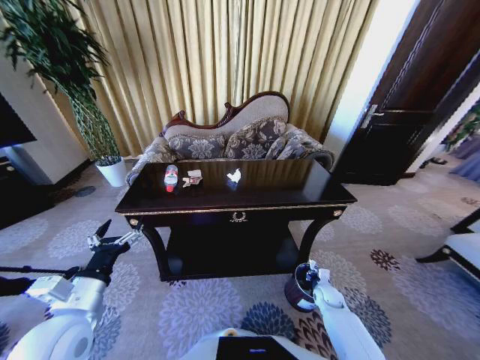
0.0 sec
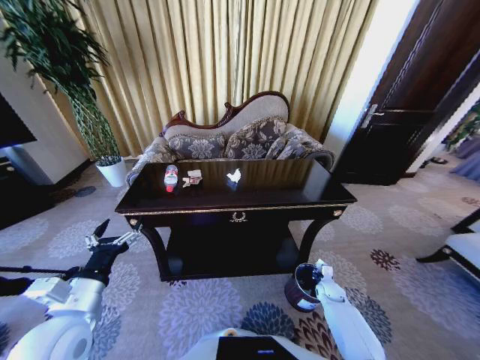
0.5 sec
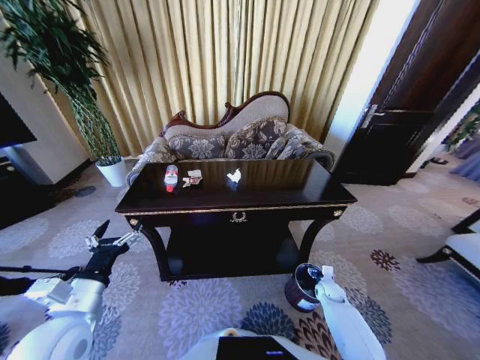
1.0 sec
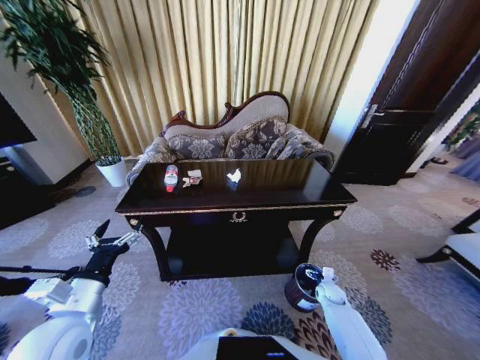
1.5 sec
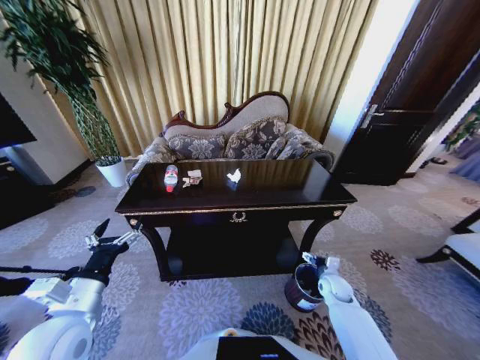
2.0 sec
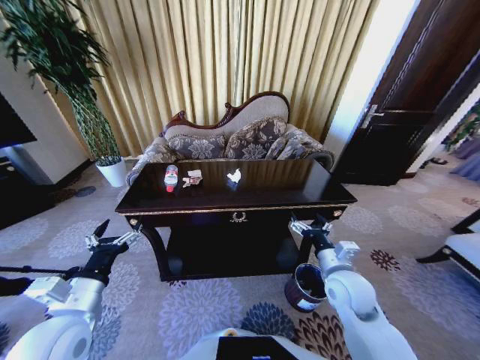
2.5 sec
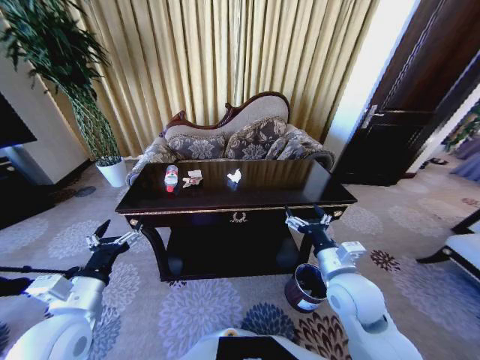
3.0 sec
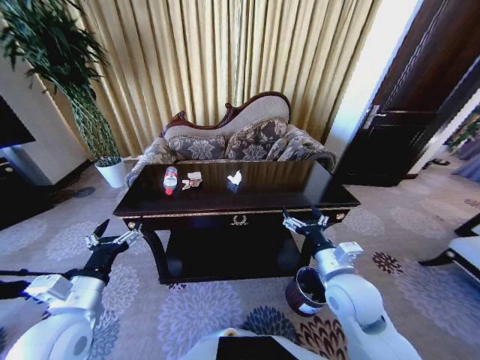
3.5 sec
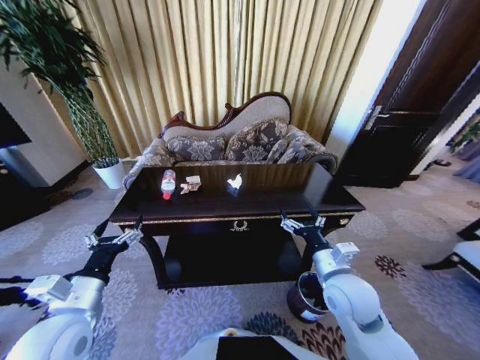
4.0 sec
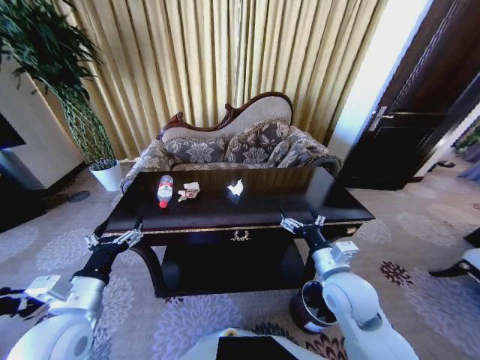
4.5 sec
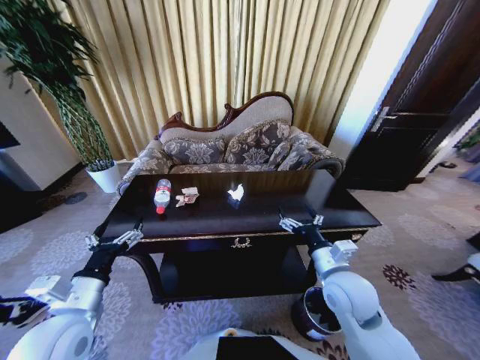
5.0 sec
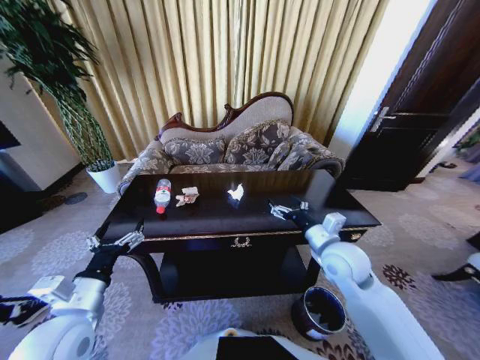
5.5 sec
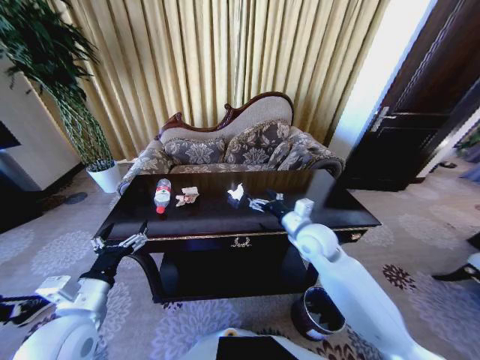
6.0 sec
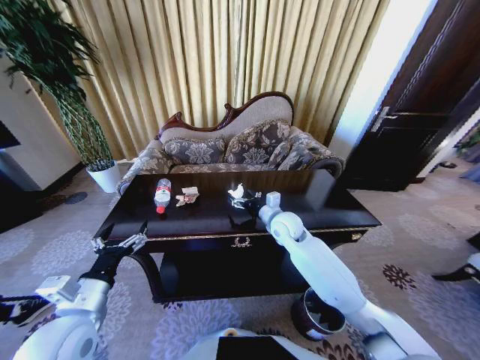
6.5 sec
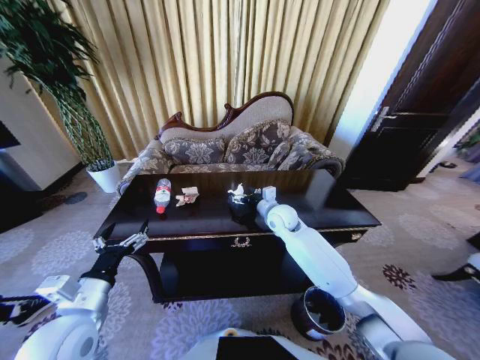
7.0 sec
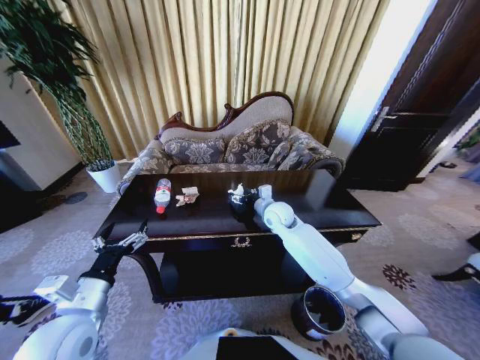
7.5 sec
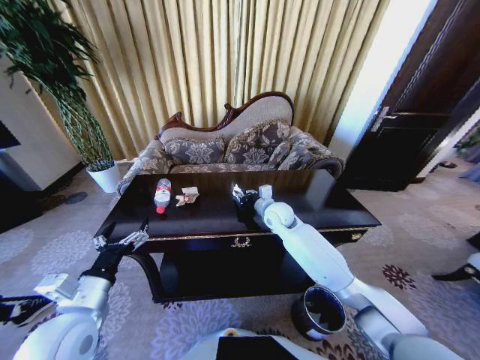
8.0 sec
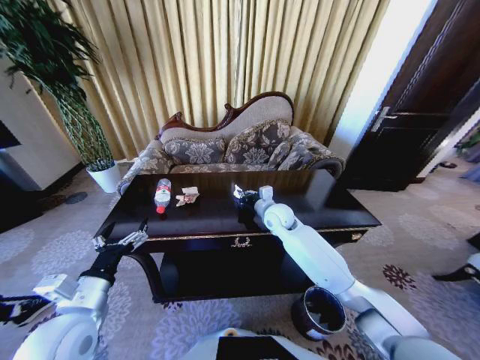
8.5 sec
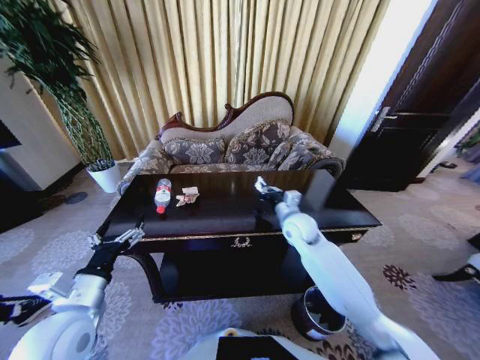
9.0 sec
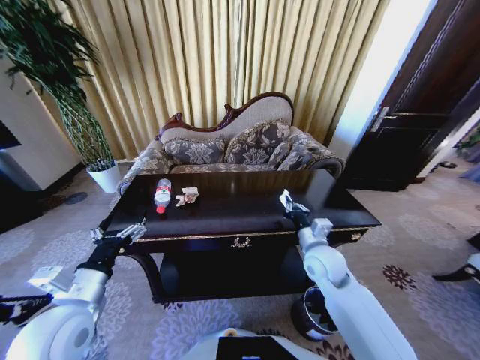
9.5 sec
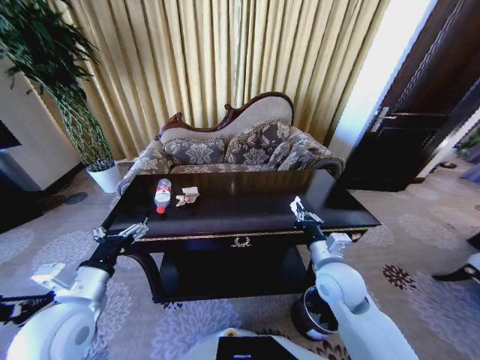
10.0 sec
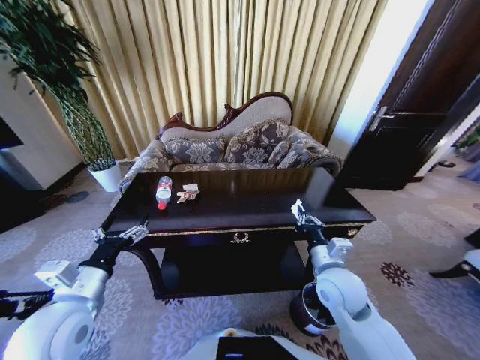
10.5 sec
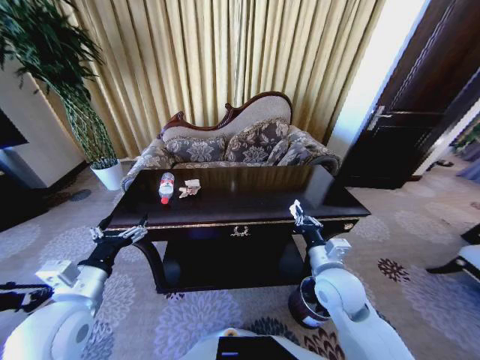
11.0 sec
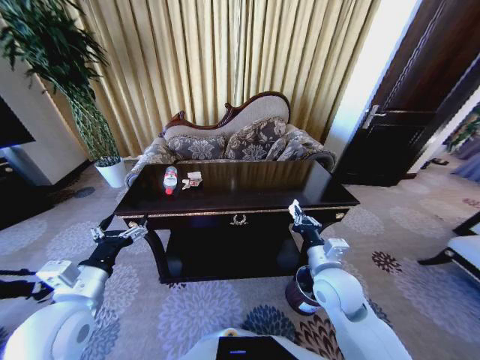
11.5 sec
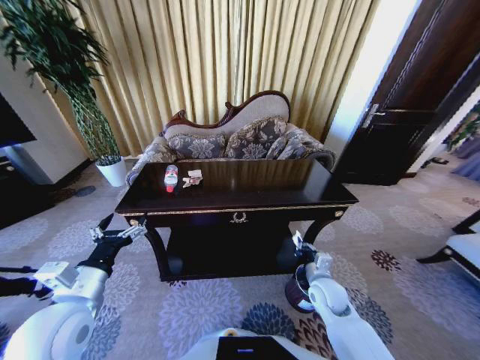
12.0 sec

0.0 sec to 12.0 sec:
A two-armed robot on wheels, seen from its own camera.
Task of the whole recording: Move to the front of the table and place the trash on the table into the trash bin.
0.0 sec to 2.0 sec: The right gripper moves upward, approximately 10 cm, and opens its fingers.
2.0 sec to 4.0 sec: The right gripper shifts some 25 cm upward and to the left.
4.0 sec to 6.0 sec: The right gripper moves forward, about 15 cm.
6.0 sec to 8.0 sec: The right gripper heads forward and to the left, covering about 15 cm, and closes.
8.0 sec to 10.0 sec: The right gripper goes some 25 cm backward and to the right.
10.0 sec to 12.0 sec: The right gripper heads downward, covering roughly 10 cm.

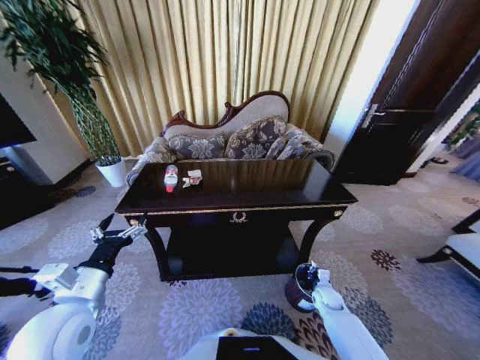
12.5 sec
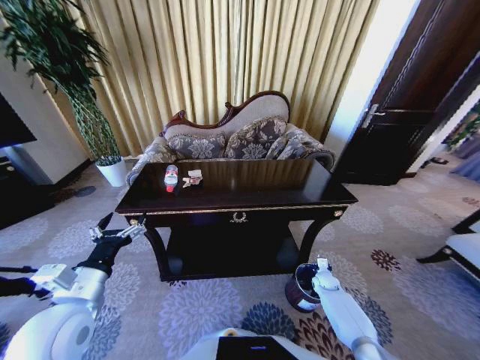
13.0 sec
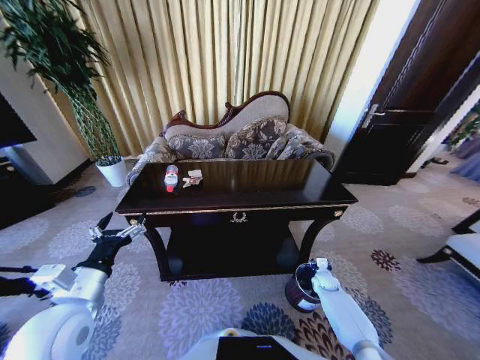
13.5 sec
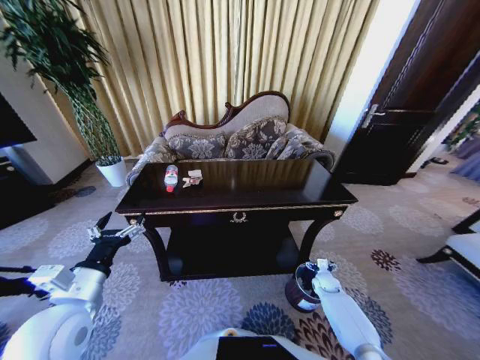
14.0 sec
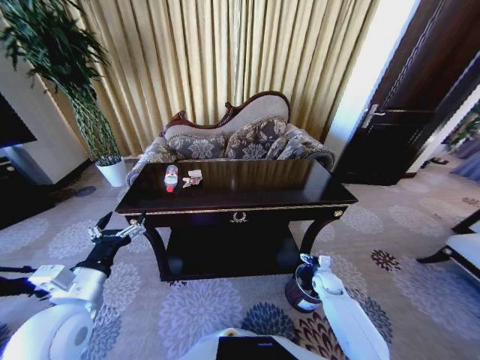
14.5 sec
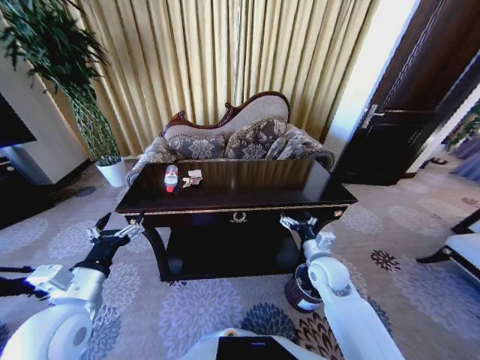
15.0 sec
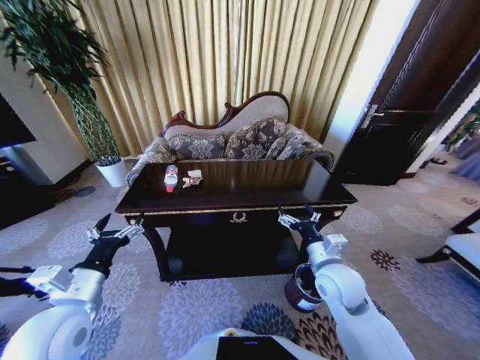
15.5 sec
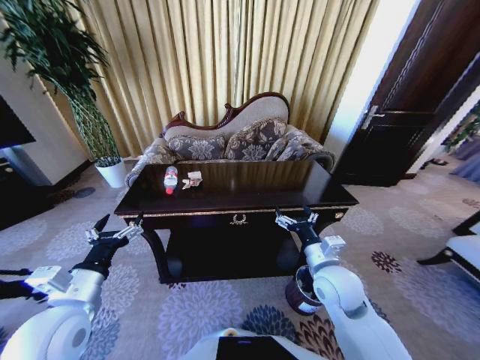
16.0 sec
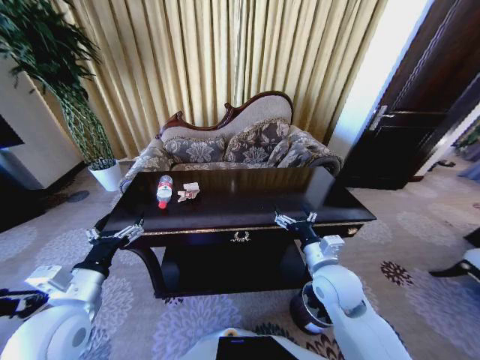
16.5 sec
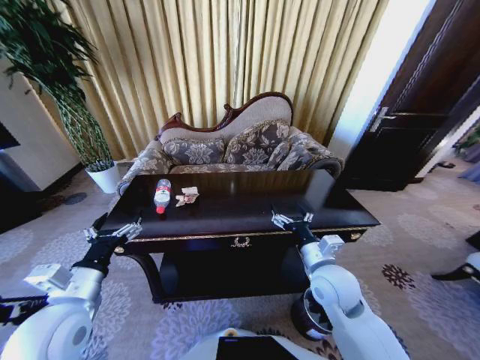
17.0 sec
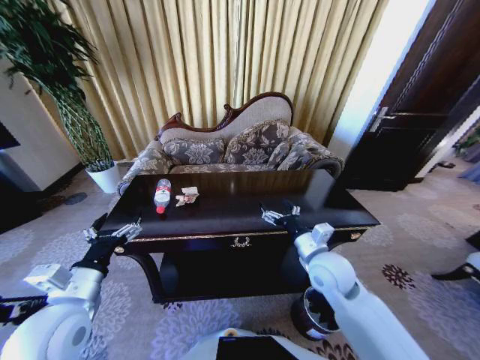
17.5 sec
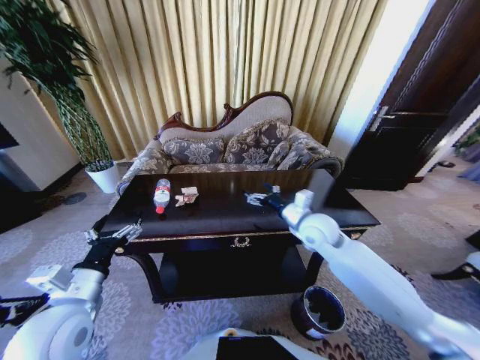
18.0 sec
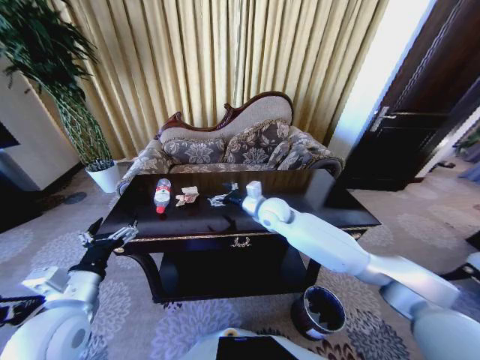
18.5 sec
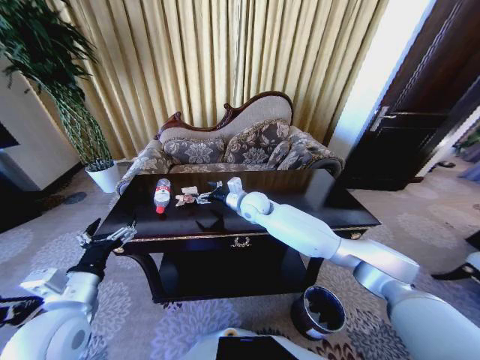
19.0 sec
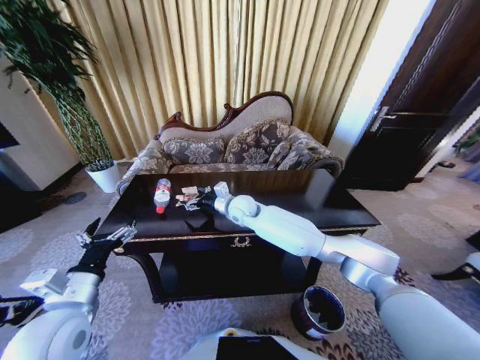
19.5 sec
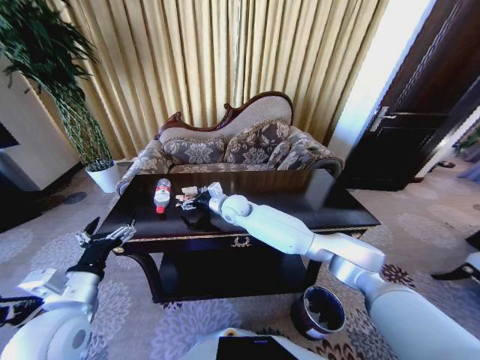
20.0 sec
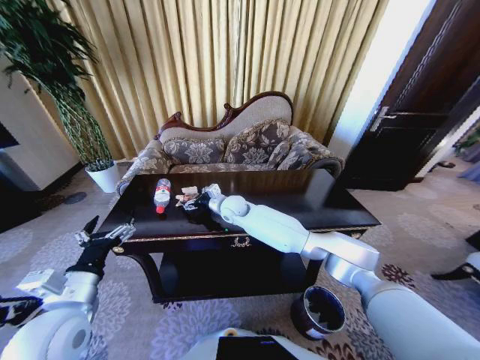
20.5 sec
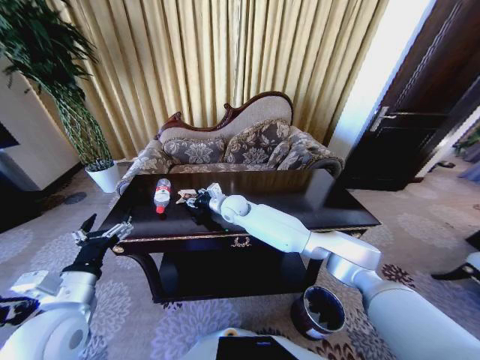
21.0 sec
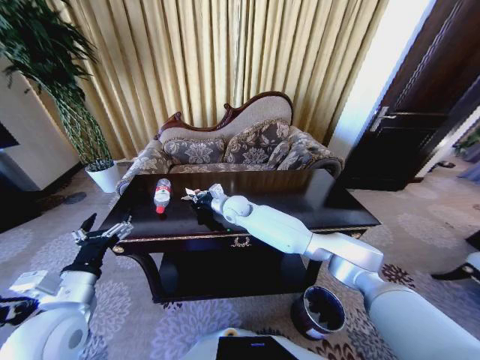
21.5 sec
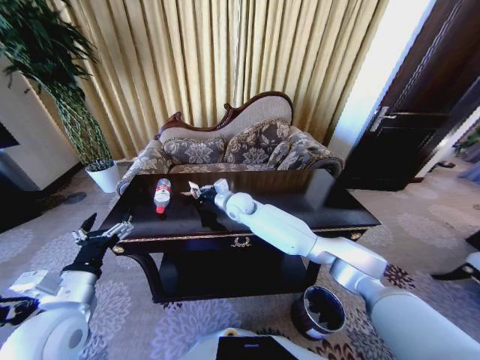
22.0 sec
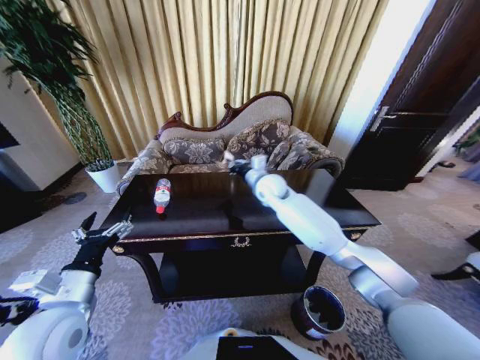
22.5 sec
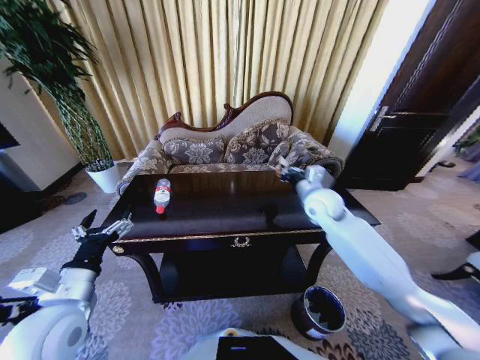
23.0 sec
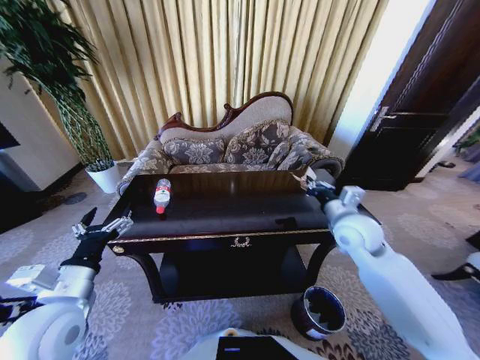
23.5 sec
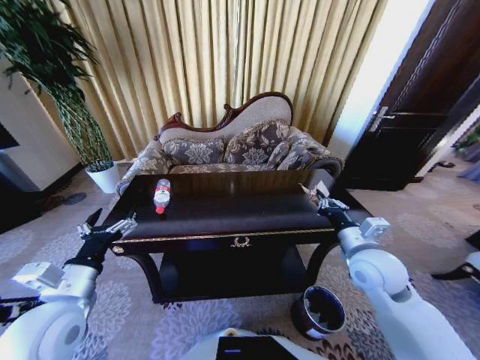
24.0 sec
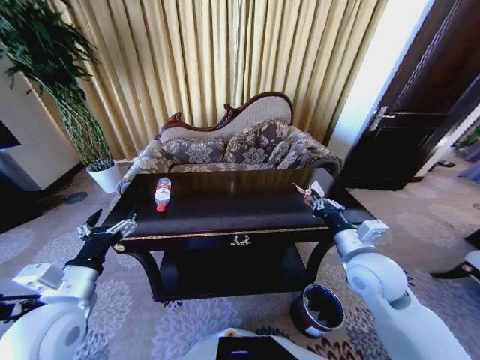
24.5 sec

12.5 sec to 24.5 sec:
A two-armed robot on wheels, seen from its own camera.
Task of the whole recording: Move to the front of the table and place the trash on the table into the trash bin.
12.5 sec to 14.5 sec: The right gripper moves approximately 5 cm, and opens up.
14.5 sec to 16.5 sec: The right gripper heads upward and to the left, covering about 30 cm.
16.5 sec to 18.5 sec: The right gripper travels forward and to the left by about 25 cm.
18.5 sec to 20.5 sec: The right gripper moves to the left and forward, about 15 cm.
20.5 sec to 22.5 sec: The right gripper shifts roughly 15 cm to the right and upward, and closes.
22.5 sec to 24.5 sec: The right gripper is displaced backward and to the right by some 30 cm.

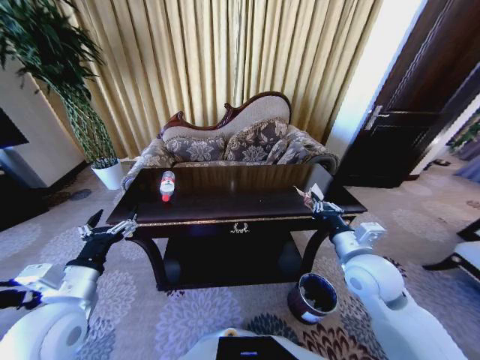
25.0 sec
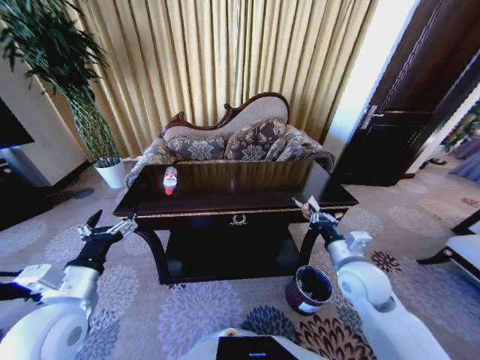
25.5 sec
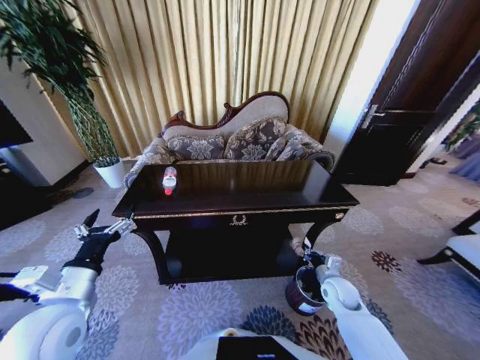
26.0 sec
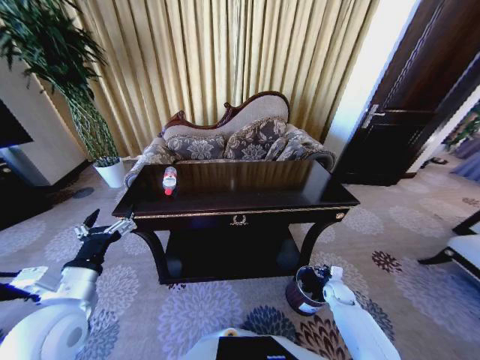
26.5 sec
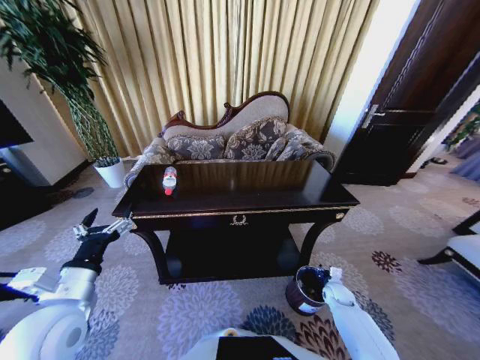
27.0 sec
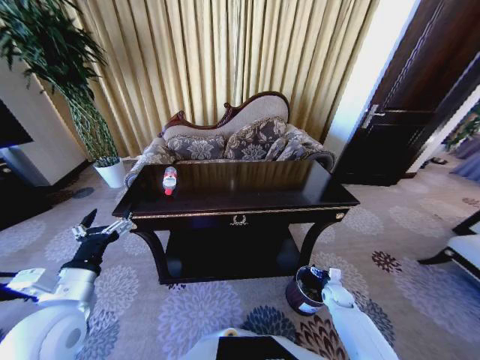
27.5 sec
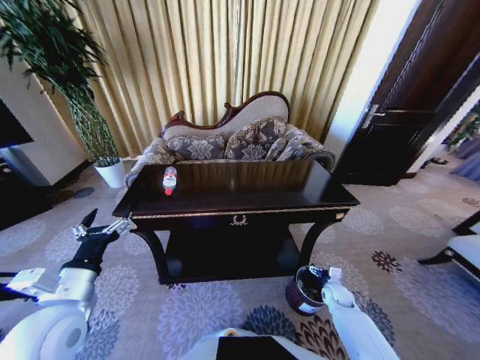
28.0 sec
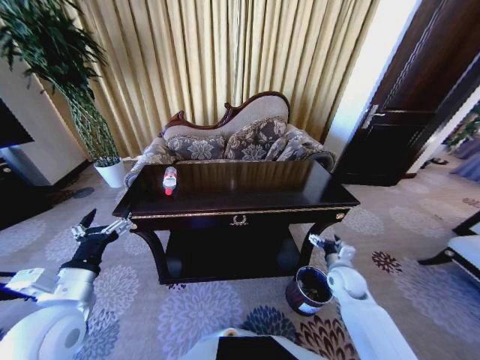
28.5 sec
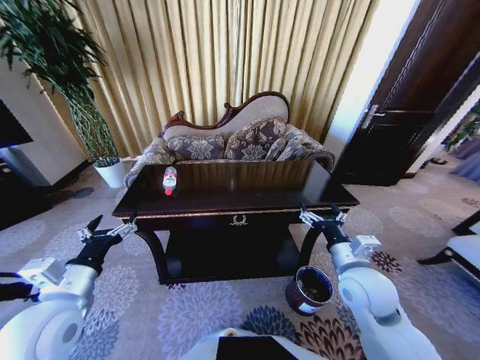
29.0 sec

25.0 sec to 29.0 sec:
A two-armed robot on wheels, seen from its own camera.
Task of the whole recording: Move to the front of the table and place the trash on the table into the trash bin.
25.0 sec to 27.0 sec: The right gripper heads downward, covering roughly 35 cm.
27.0 sec to 29.0 sec: The right gripper is displaced upward and to the left by about 35 cm, and opens its fingers.
